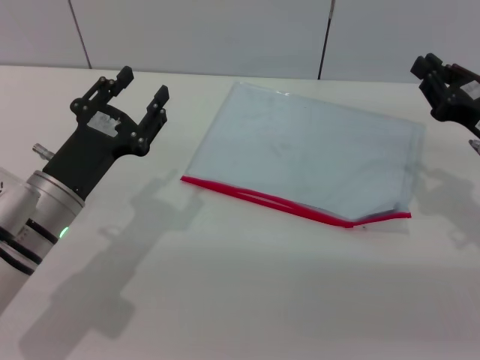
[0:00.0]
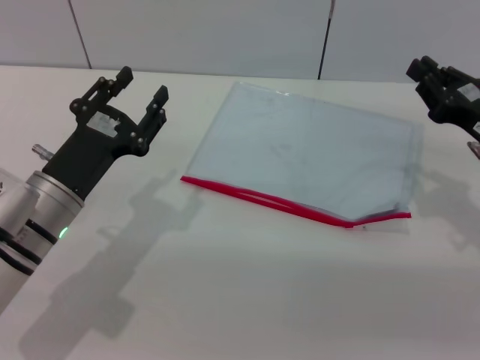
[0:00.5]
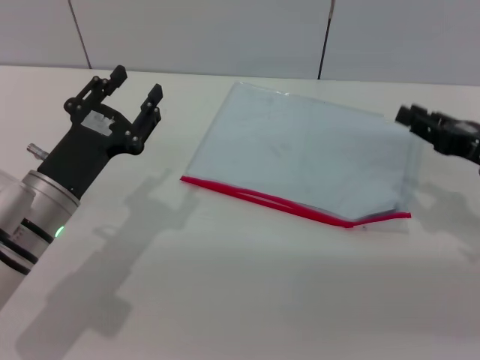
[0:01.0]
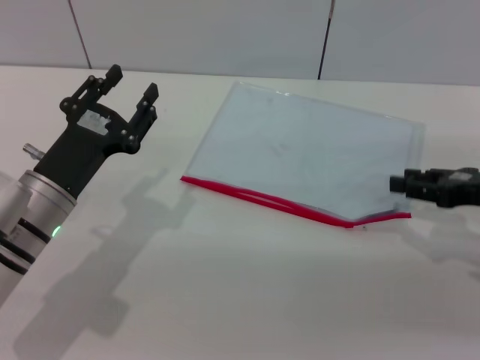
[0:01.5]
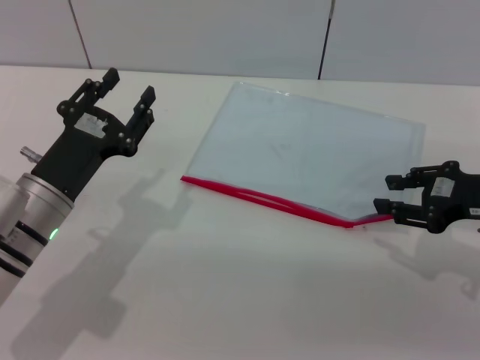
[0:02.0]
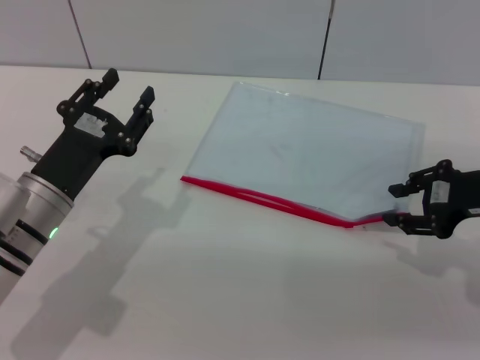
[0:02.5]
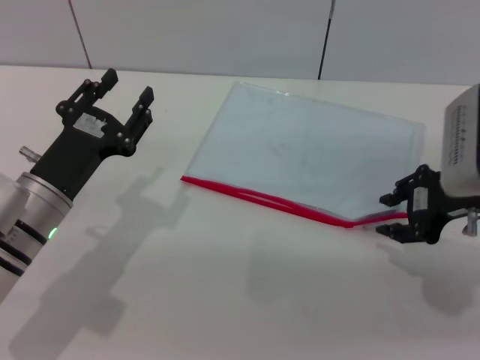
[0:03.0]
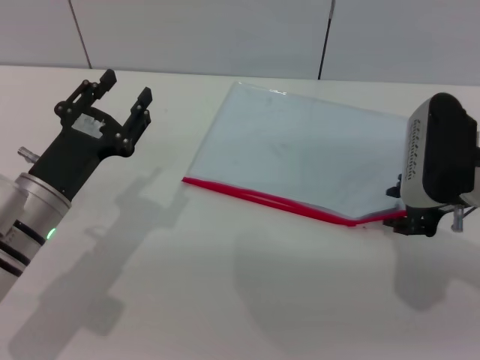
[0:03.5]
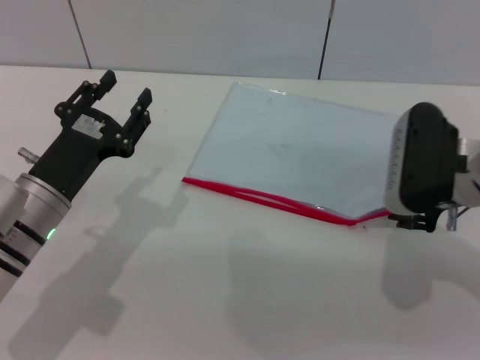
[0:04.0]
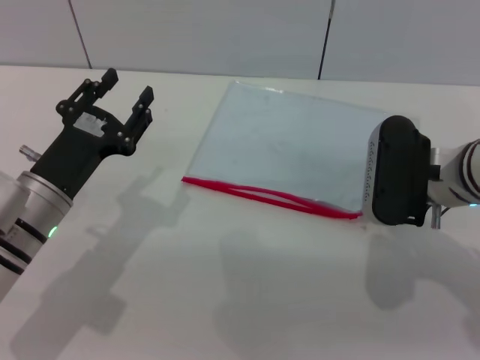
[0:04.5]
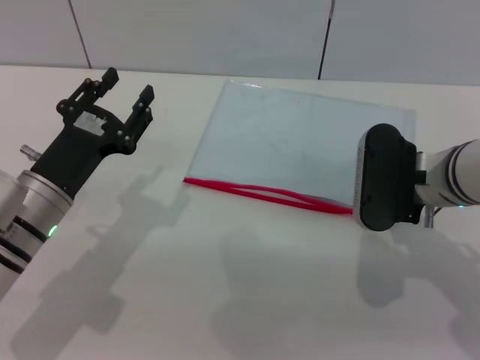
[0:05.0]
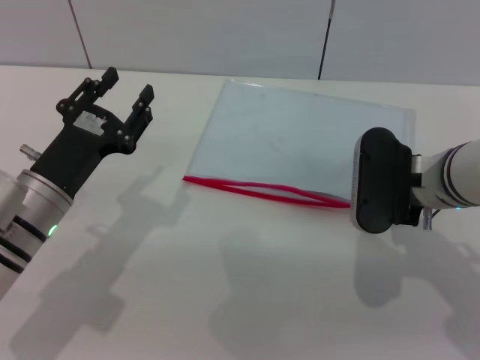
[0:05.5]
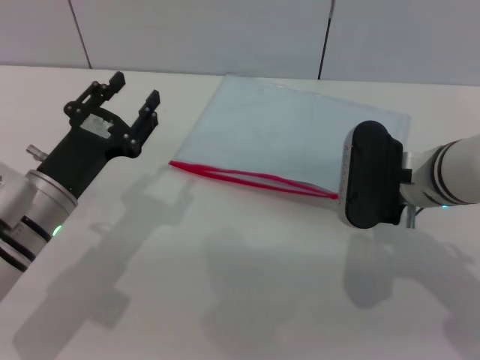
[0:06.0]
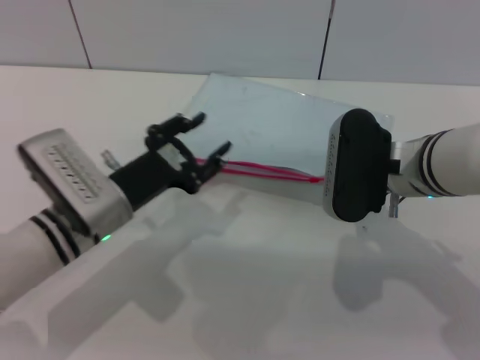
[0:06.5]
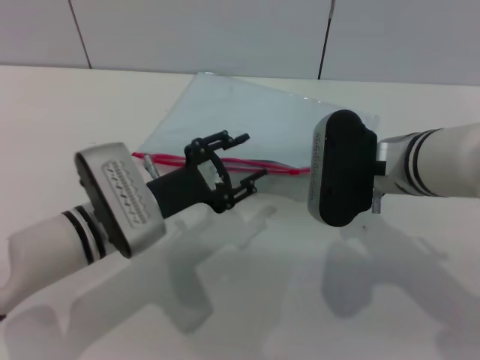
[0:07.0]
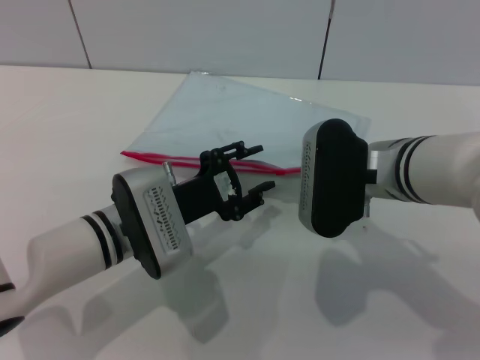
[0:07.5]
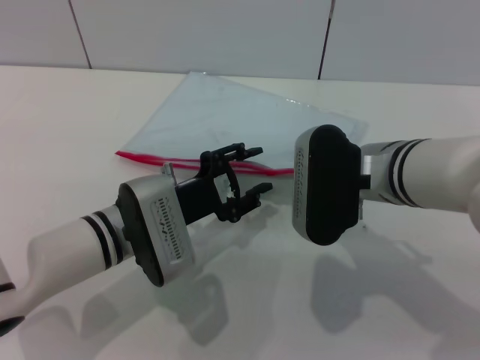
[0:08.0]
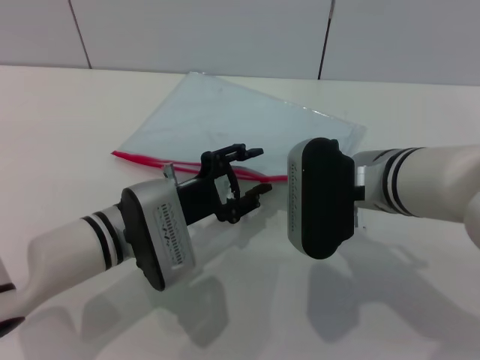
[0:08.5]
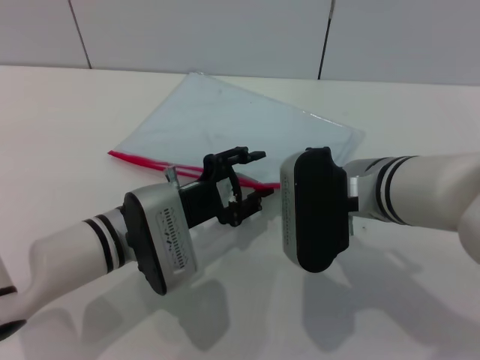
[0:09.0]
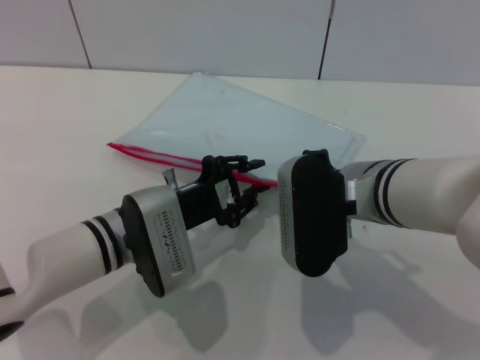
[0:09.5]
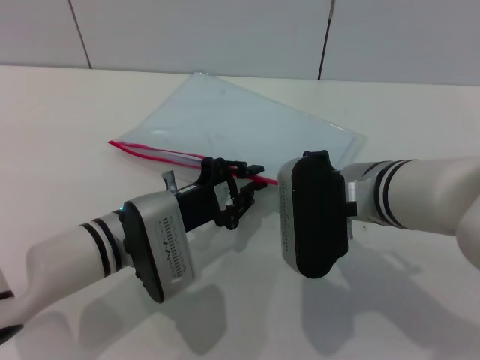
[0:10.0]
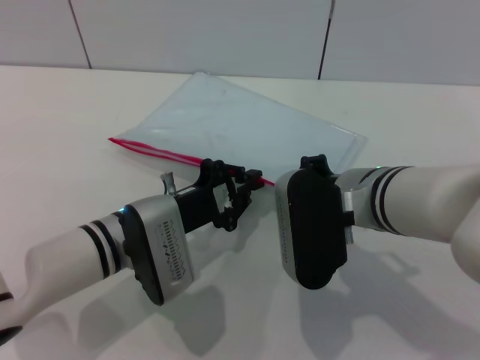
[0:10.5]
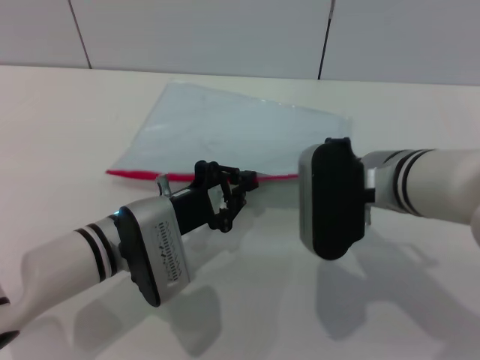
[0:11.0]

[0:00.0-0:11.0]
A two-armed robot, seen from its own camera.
Step, 0:00.0 to 0:06.5: Pick up the transparent plastic bag with the right gripper.
0:00.0 to 0:02.0: The right gripper opens its fingers.
0:02.0 to 0:03.5: The right gripper heads to the left, covering some 10 cm.
0:03.5 to 0:05.5: The right gripper closes up.
0:05.5 to 0:07.5: The right gripper changes place by roughly 5 cm, and closes its fingers. Meanwhile the left gripper heads to the right, covering roughly 10 cm.
0:07.5 to 0:09.0: The grippers stay close to where they were, moving slightly.
0:09.0 to 0:11.0: The left gripper closes up.

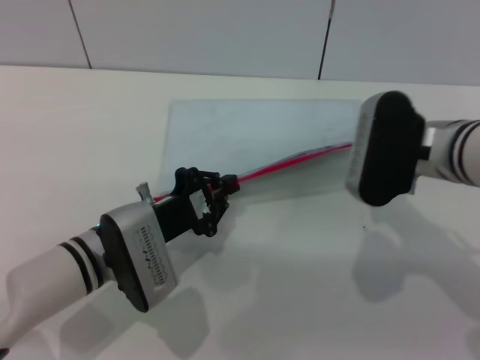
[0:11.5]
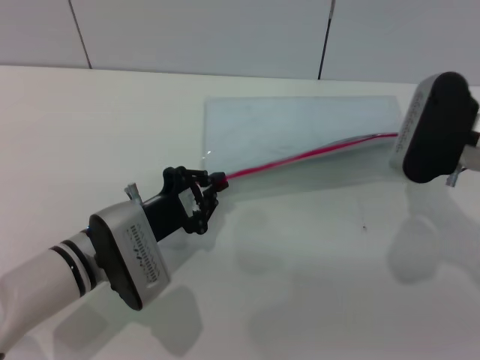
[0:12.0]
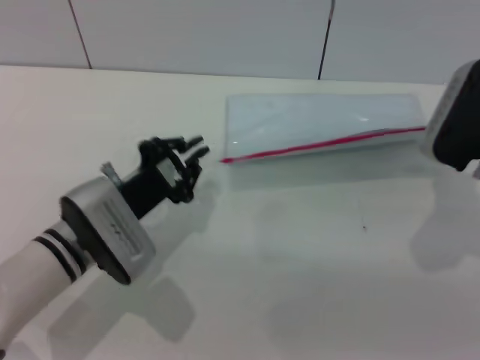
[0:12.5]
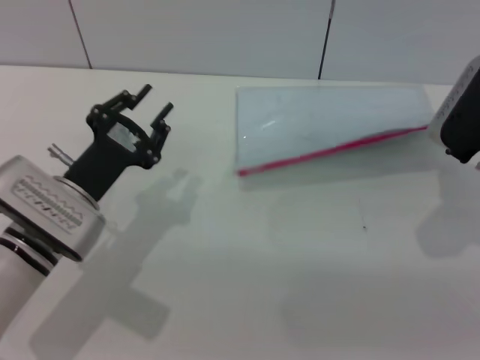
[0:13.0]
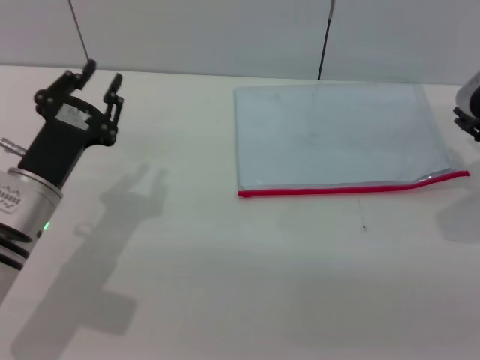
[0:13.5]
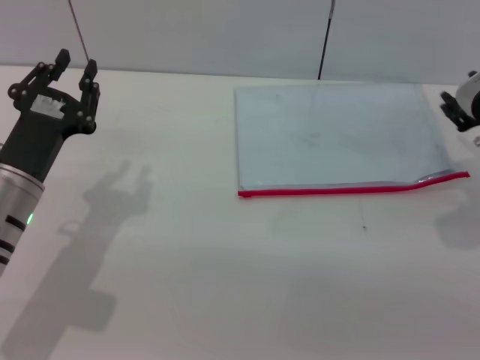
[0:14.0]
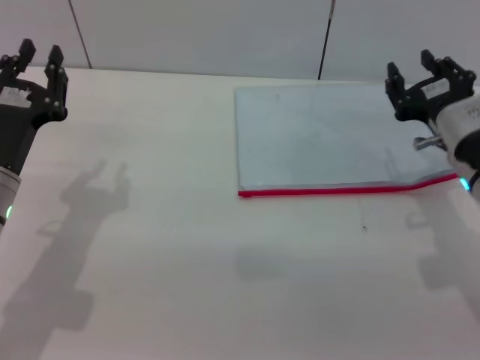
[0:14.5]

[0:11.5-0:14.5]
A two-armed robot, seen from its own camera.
Step, 0:13.5 to 0:14.0: Place the transparent plastic bag.
0:11.5 to 0:13.0: The left gripper moves about 5 cm, and opens. Meanwhile the right gripper heads to the right, covering approximately 10 cm.
0:13.0 to 0:14.5: The left gripper shifts about 5 cm to the left, while the right gripper changes place by some 5 cm, and opens up.
